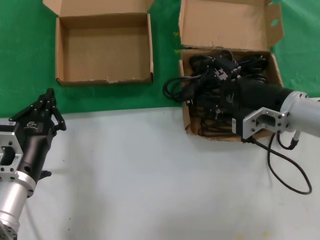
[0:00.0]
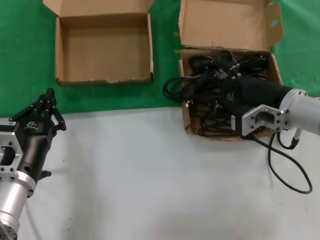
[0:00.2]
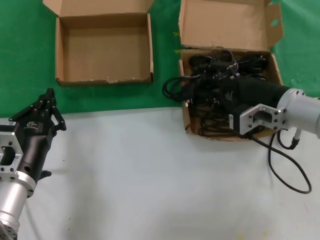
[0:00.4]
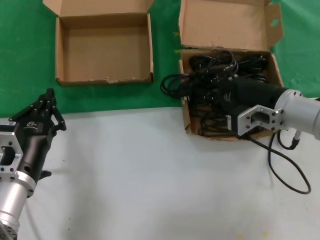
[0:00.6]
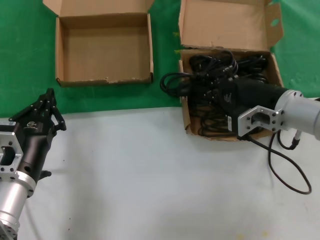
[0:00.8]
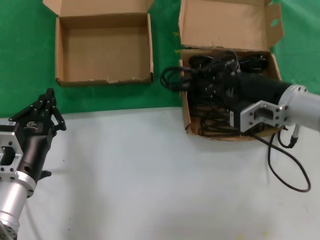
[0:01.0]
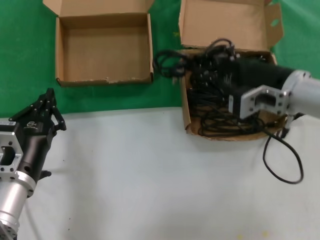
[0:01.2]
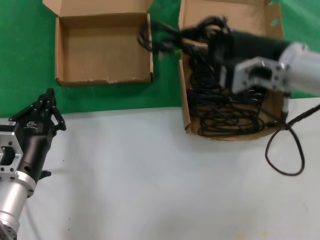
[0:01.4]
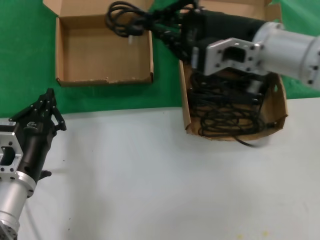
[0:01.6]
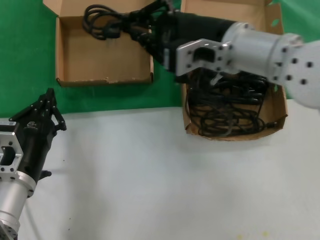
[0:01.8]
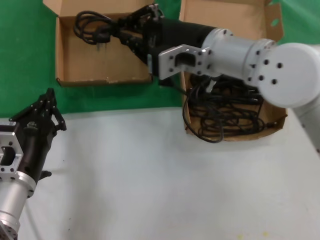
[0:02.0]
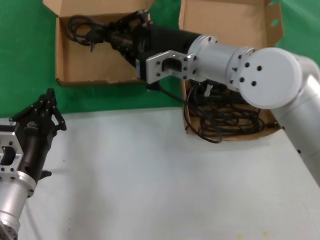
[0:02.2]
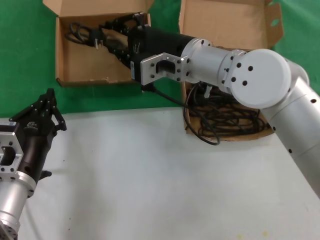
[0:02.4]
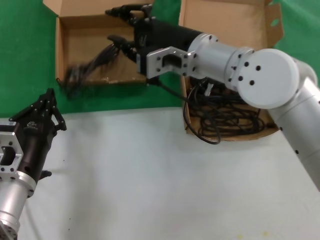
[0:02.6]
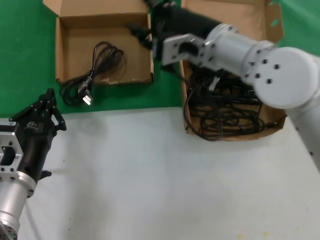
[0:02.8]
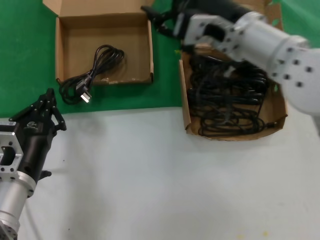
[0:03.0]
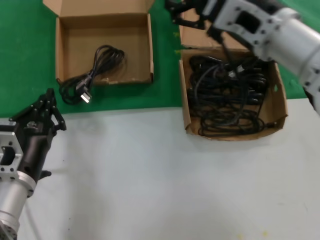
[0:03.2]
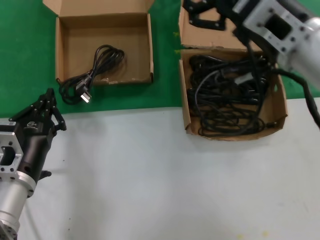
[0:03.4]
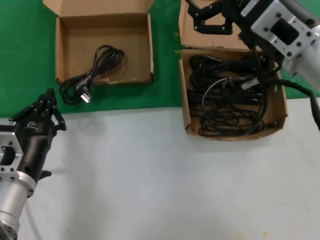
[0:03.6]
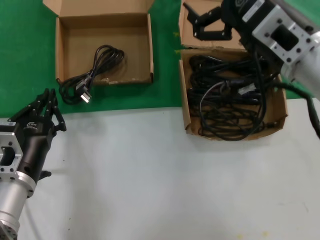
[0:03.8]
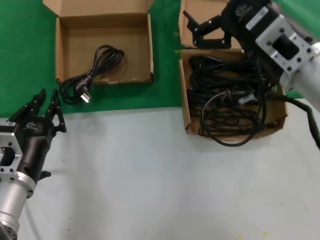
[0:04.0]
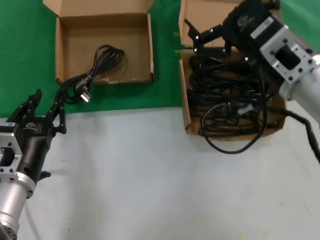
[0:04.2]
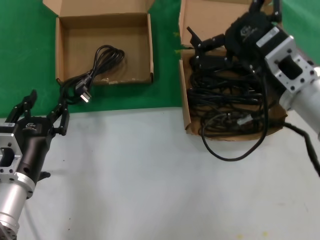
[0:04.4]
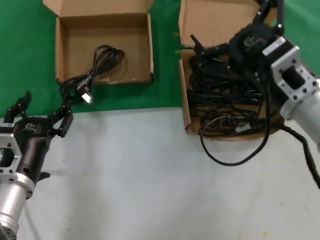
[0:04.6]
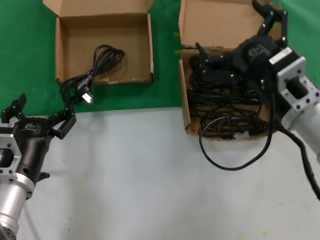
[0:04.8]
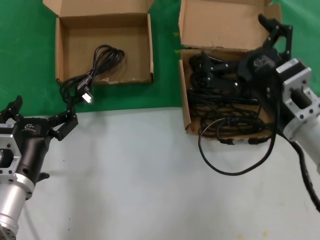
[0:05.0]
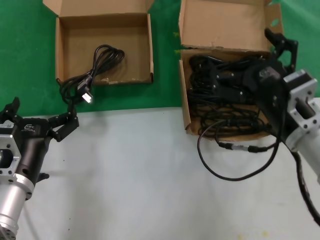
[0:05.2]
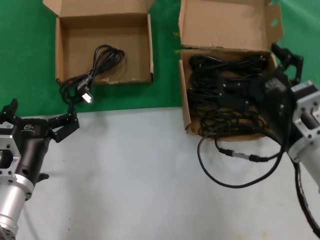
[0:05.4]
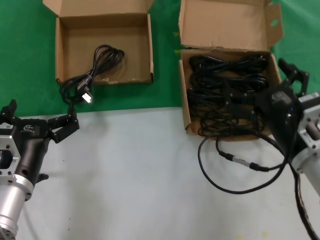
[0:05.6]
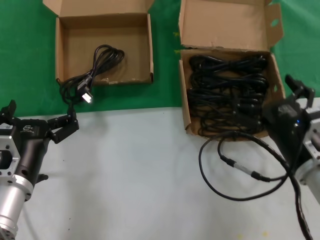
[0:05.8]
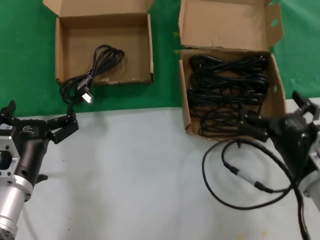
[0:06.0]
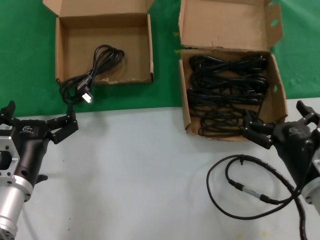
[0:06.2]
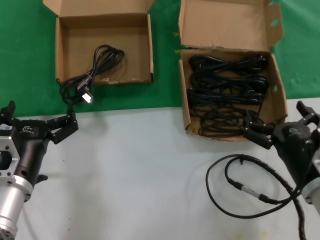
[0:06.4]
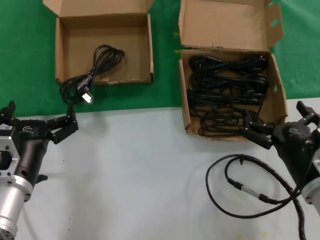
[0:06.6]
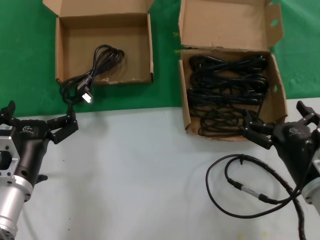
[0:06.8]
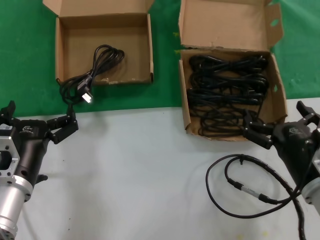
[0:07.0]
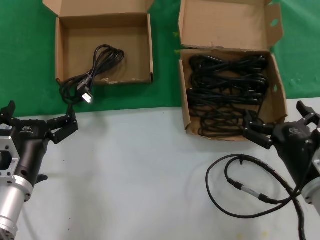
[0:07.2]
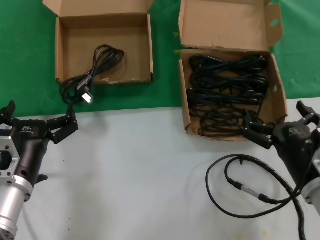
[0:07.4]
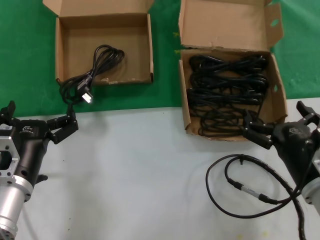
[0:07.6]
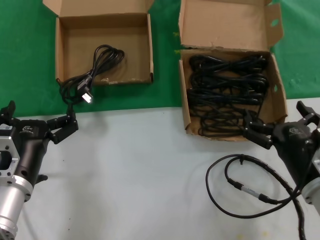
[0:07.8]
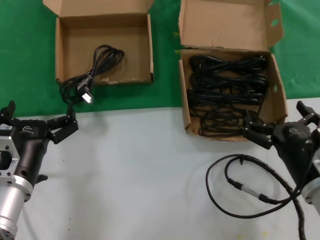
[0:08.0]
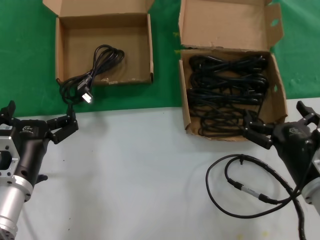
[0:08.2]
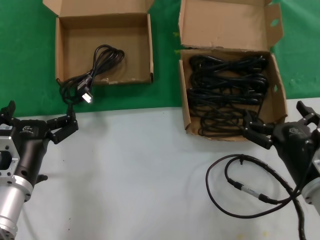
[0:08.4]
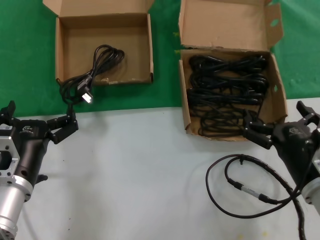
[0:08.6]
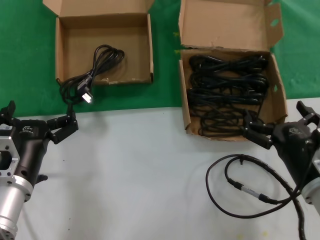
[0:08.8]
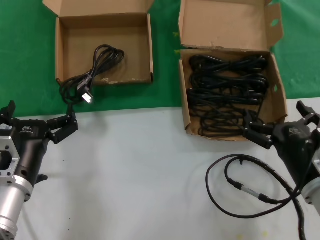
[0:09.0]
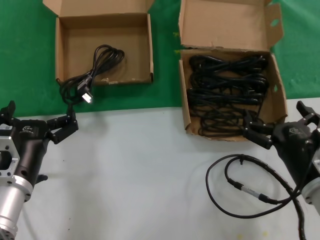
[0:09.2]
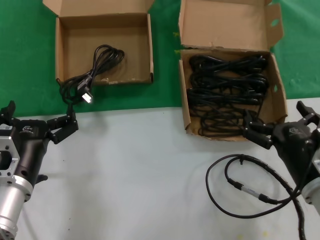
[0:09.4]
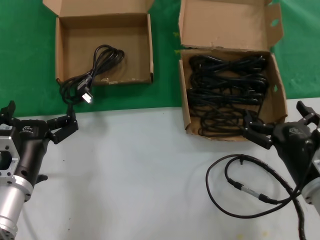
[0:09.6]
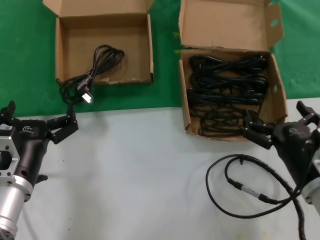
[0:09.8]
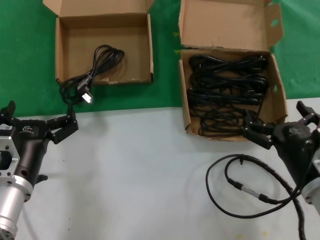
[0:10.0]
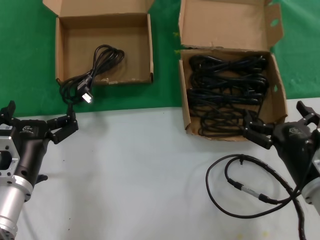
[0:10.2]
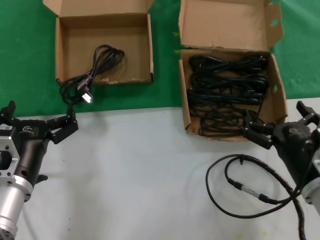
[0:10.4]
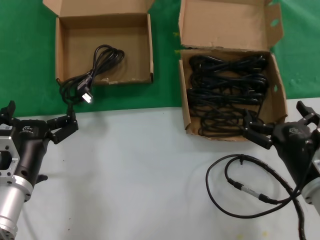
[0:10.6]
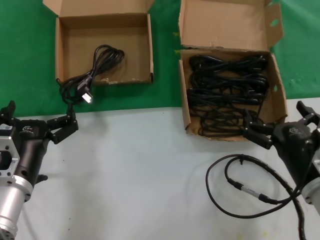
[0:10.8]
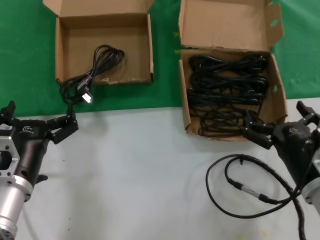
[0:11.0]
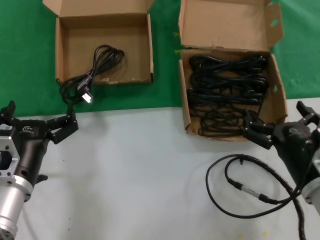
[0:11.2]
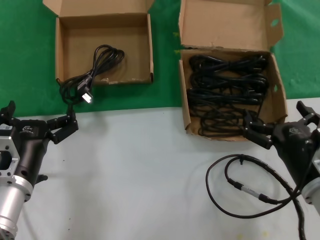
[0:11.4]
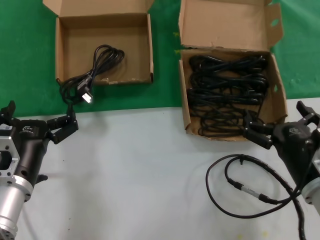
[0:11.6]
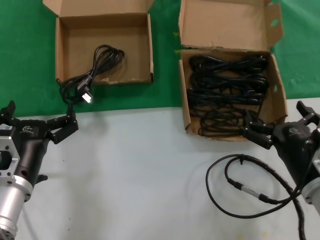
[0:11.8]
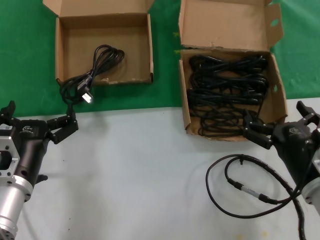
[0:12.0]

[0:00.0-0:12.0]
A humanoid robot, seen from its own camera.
Task of the whole recording: take the parts from the box containing them and put them into an empty box.
Step, 0:00.8 to 0:02.6: Place the data cable in the another box.
0:00.0 to 0:01.6: The right hand goes some 15 cm upward and to the left.
0:03.0 to 0:04.4: The right hand travels backward, to the right and downward by some 10 cm.
0:04.4 to 0:06.0: The right hand is displaced downward by some 15 cm.
0:06.0 to 0:07.6: There are only small adjustments of the hands.
0:07.6 to 0:12.0: Both hands stay put.

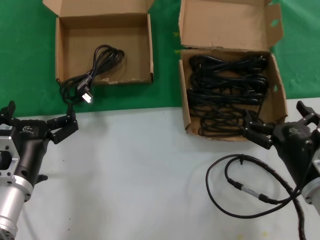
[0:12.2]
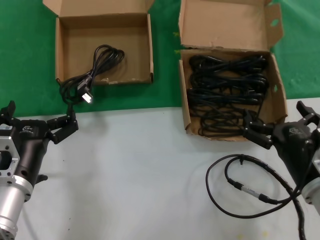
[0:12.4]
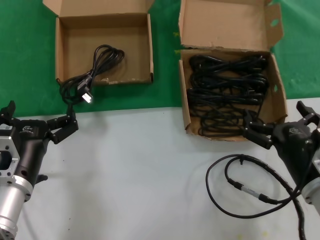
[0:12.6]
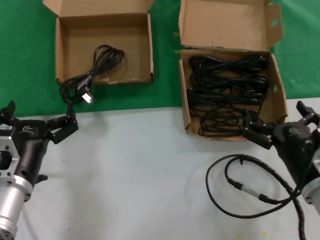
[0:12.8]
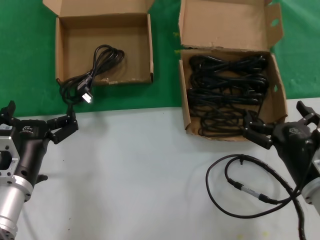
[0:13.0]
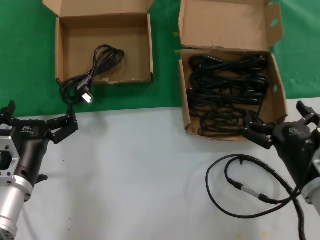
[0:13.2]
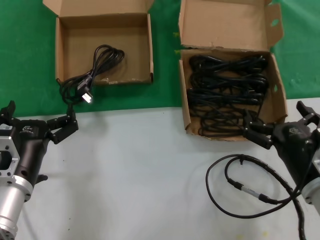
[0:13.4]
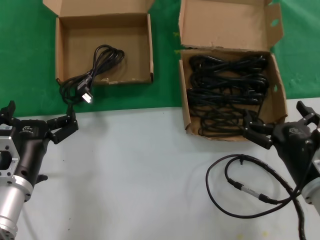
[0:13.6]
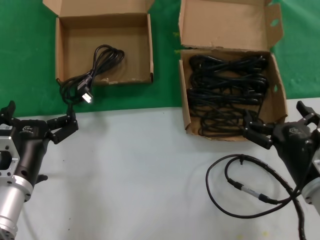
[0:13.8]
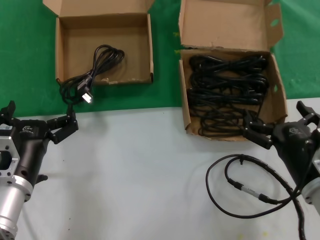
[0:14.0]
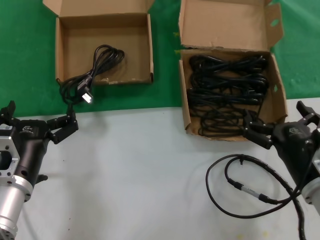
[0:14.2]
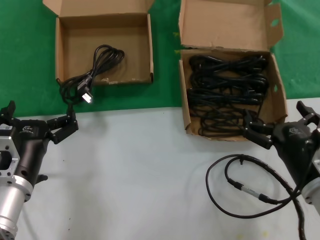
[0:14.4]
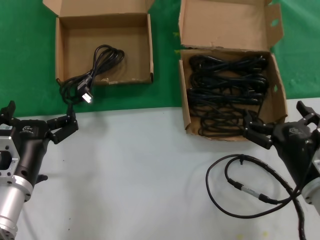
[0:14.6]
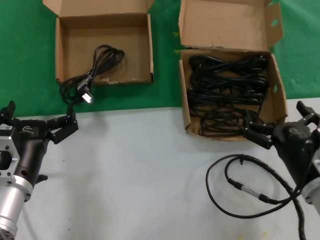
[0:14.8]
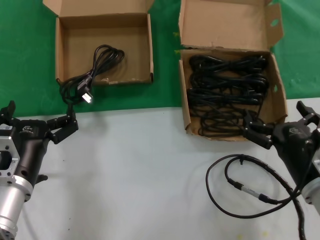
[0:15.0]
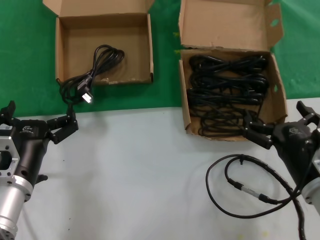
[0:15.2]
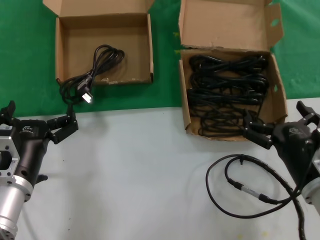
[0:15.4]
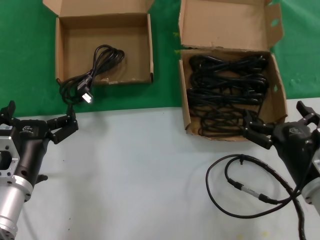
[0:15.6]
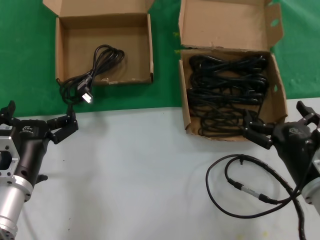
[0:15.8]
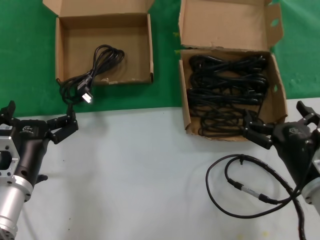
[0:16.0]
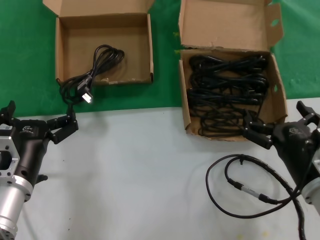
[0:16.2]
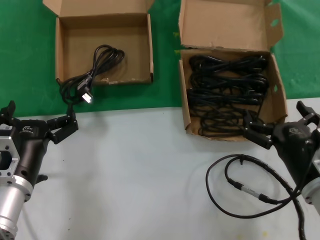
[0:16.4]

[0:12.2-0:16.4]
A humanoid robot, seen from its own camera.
Task of the whole recording: take the parts from the box containing them and put them into an empty box.
0:12.2 to 0:16.4: Neither hand changes place.

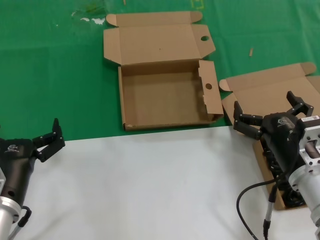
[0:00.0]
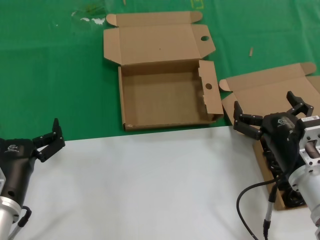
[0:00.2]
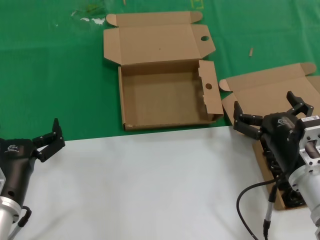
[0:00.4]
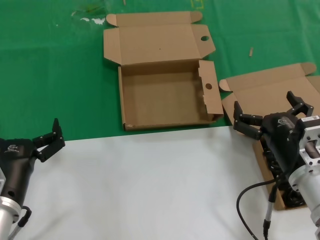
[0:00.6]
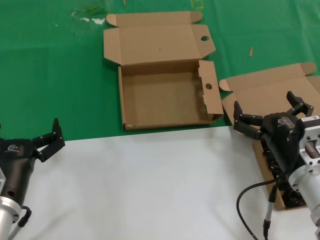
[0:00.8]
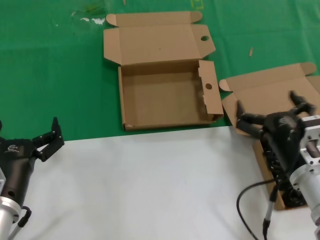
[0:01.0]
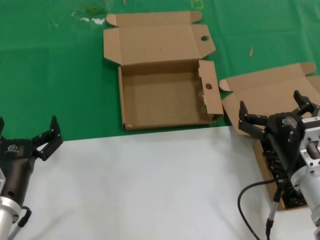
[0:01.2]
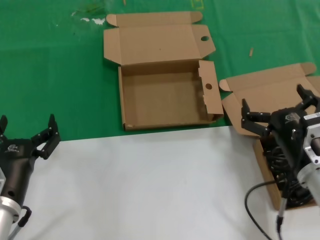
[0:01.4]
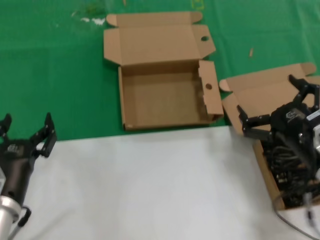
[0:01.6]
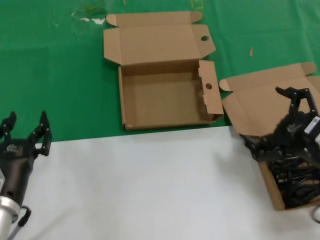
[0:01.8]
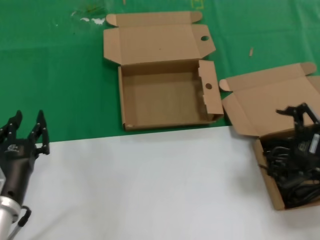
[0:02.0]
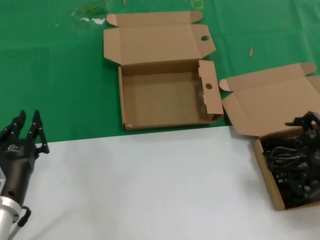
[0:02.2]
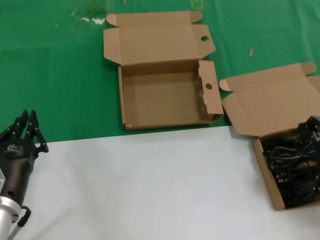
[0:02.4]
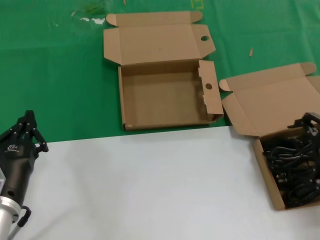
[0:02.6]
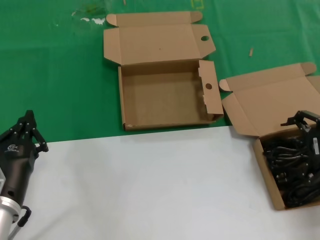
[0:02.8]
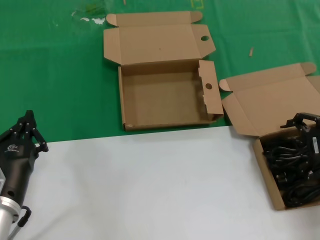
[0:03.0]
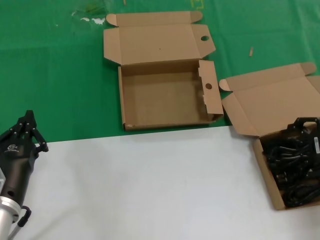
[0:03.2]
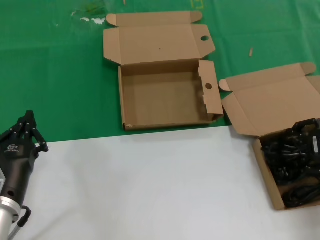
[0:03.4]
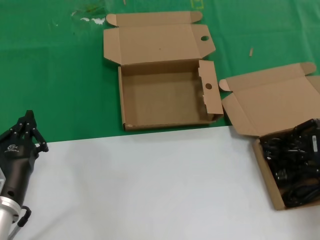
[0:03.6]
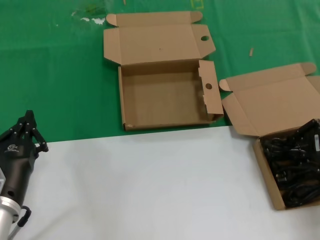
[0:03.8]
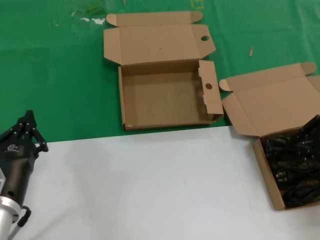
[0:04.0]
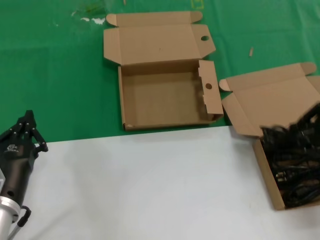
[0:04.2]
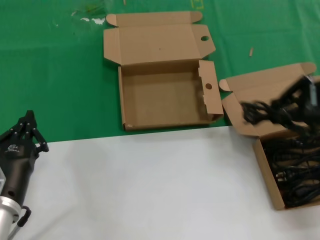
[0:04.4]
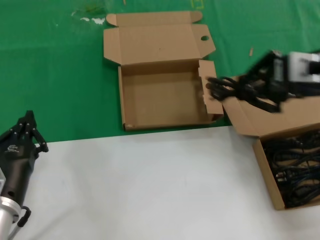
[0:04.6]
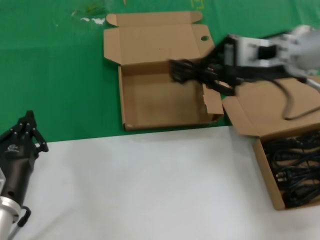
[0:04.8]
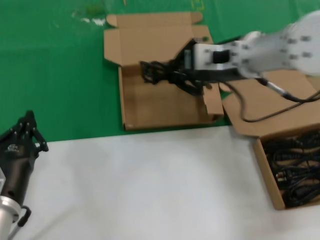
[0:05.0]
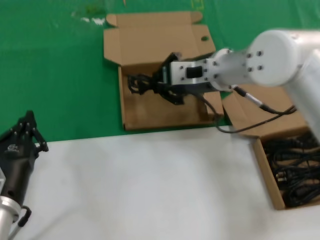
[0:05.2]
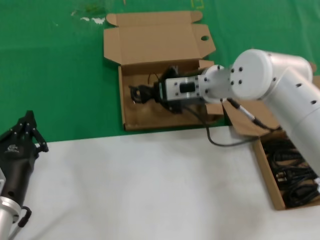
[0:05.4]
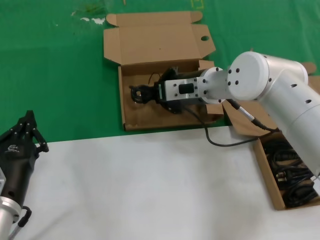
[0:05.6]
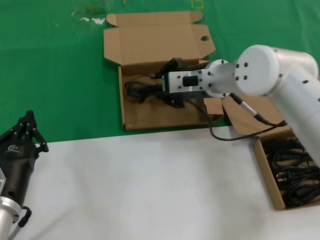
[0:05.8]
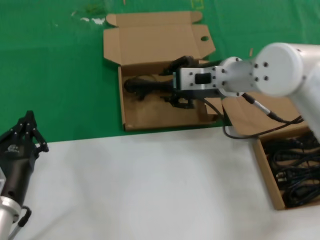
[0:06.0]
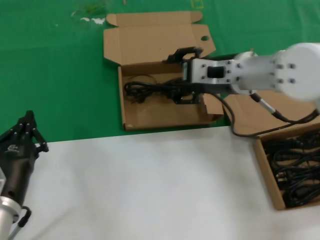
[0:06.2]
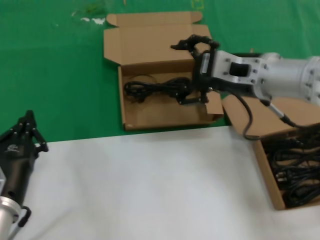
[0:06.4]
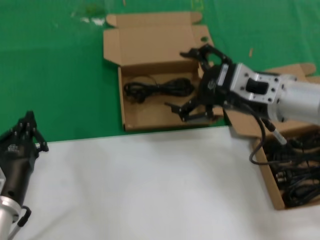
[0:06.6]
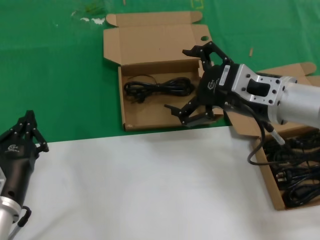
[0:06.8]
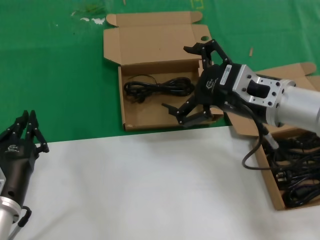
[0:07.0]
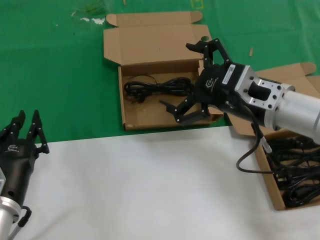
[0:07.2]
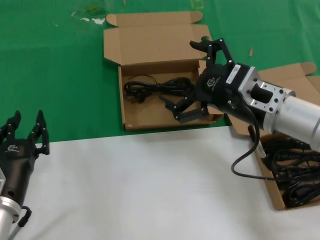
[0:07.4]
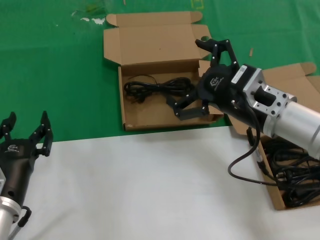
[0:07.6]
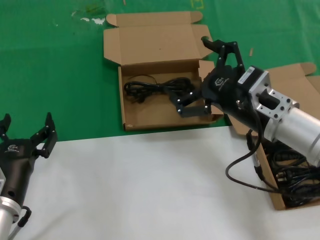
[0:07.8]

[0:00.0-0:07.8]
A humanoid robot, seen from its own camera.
Task of the whole recording: take the parts from the box containing them and put them into an empty box.
Step, 0:00.0 to 0:03.4: Grasp the data cable.
Step, 0:03.8 to 0:06.4: Place the data cable in the another box.
0:00.0 to 0:01.6: The right hand moves about 5 cm.
0:01.6 to 0:03.2: The right hand heads to the right, upward and forward, covering approximately 15 cm.
0:03.2 to 0:04.6: The right hand moves upward and to the left, roughly 15 cm.
0:04.6 to 0:06.2: The right hand travels to the left, forward and downward by some 15 cm.
0:06.2 to 0:07.8: The right hand moves backward and downward, some 10 cm.
